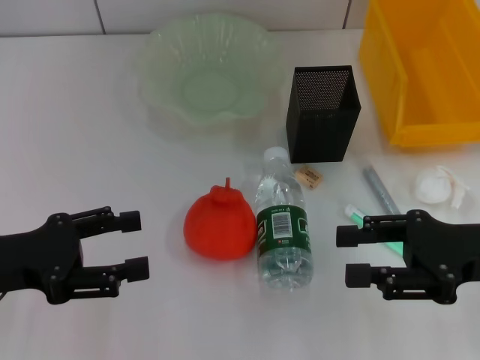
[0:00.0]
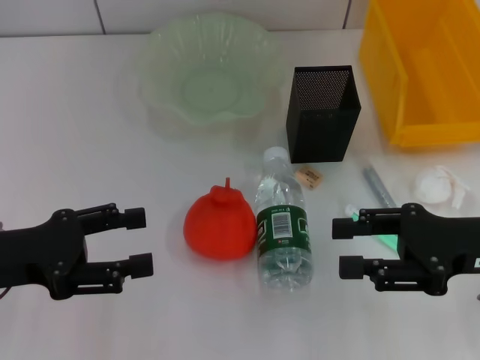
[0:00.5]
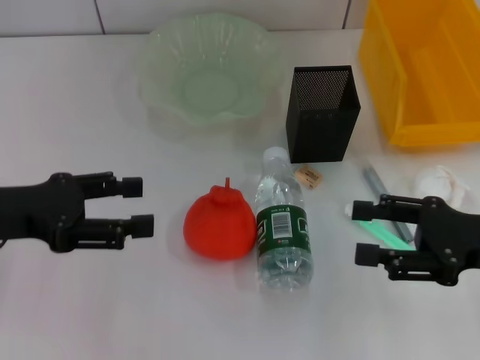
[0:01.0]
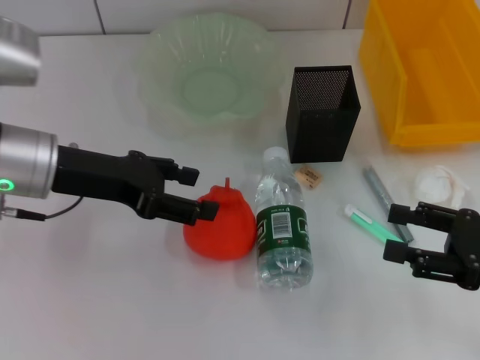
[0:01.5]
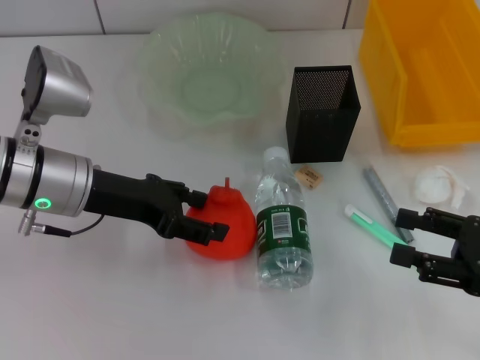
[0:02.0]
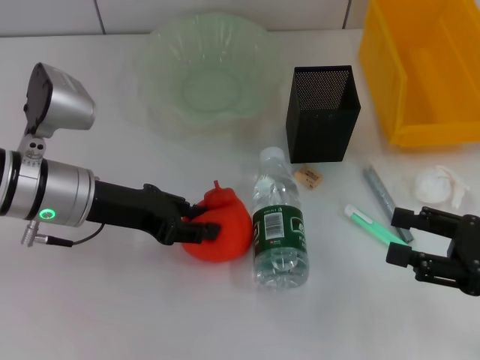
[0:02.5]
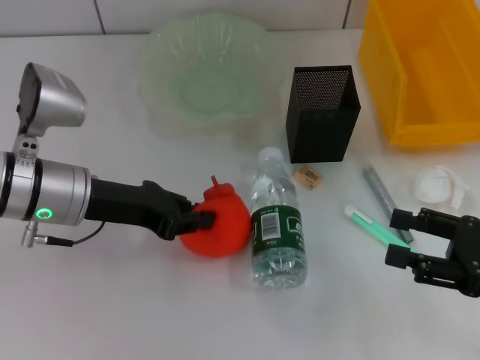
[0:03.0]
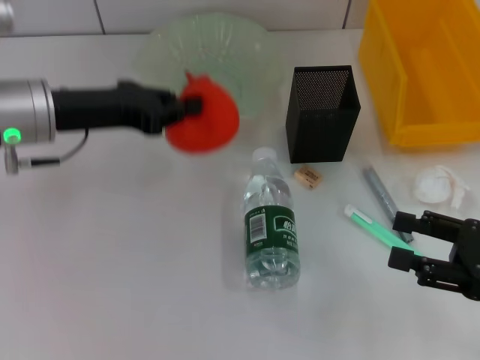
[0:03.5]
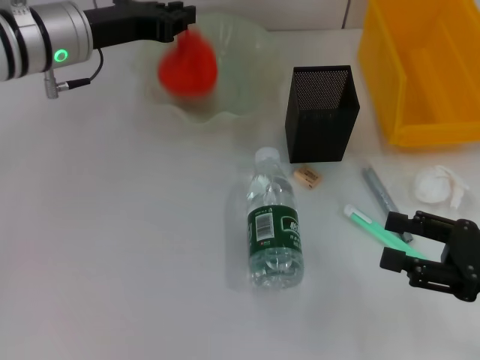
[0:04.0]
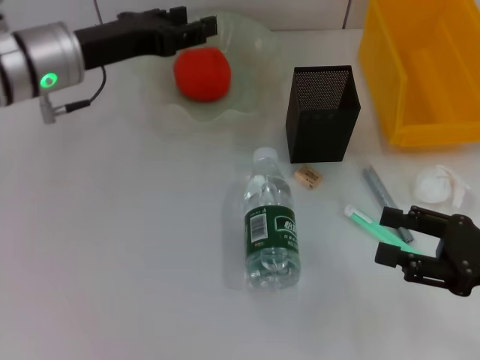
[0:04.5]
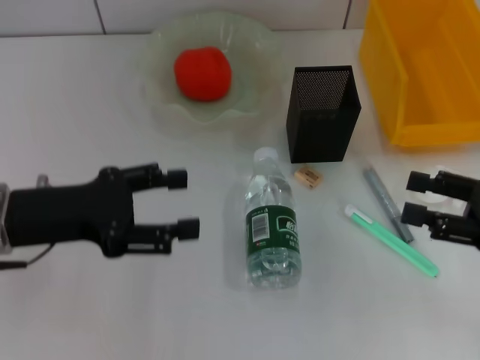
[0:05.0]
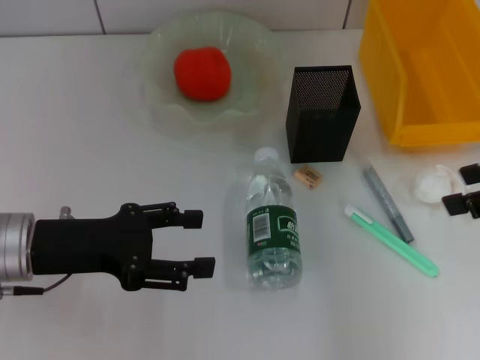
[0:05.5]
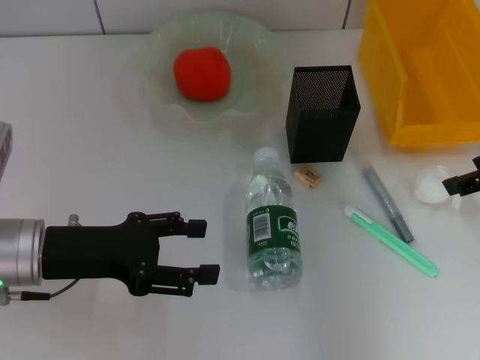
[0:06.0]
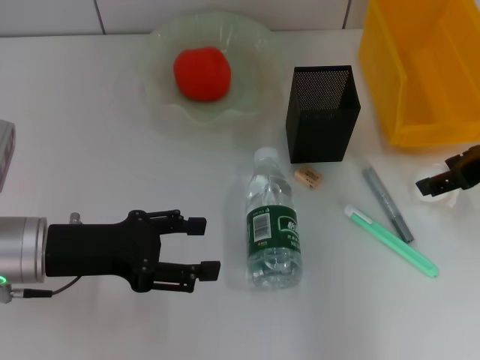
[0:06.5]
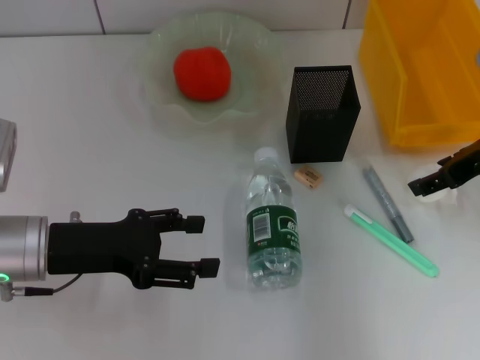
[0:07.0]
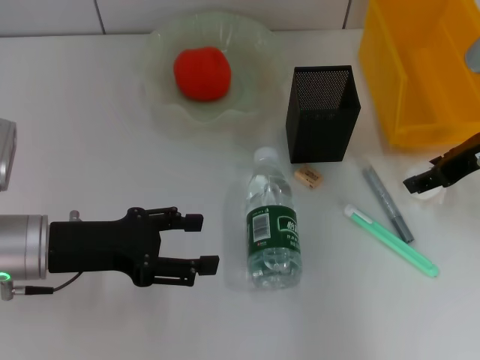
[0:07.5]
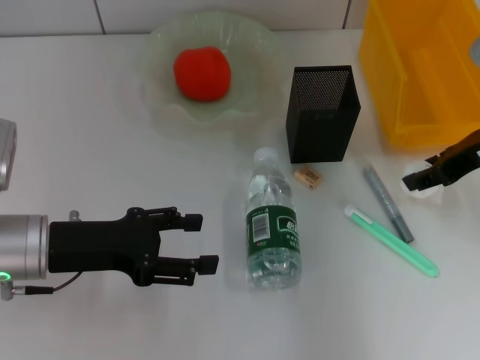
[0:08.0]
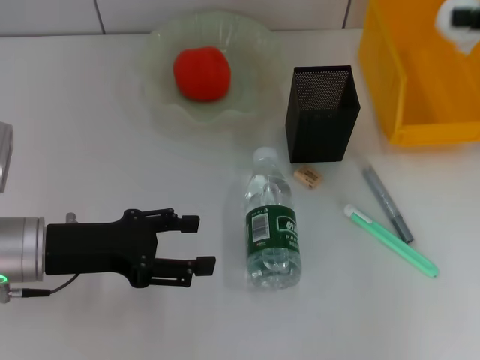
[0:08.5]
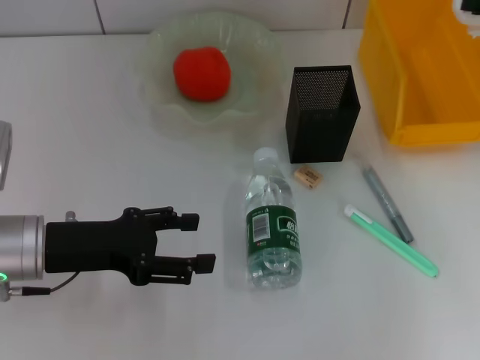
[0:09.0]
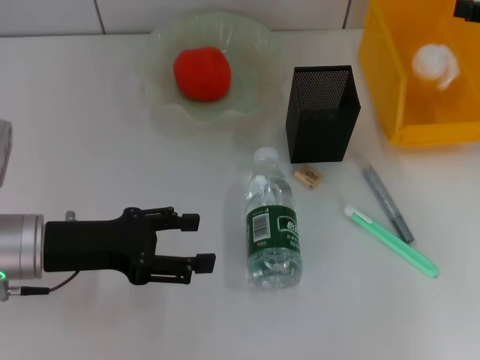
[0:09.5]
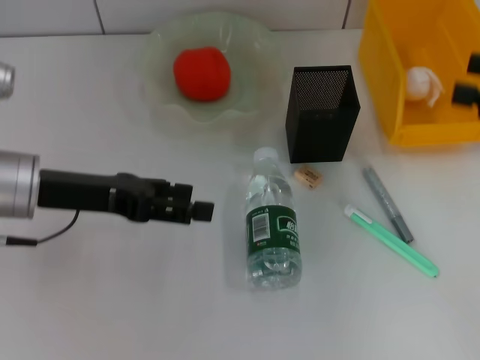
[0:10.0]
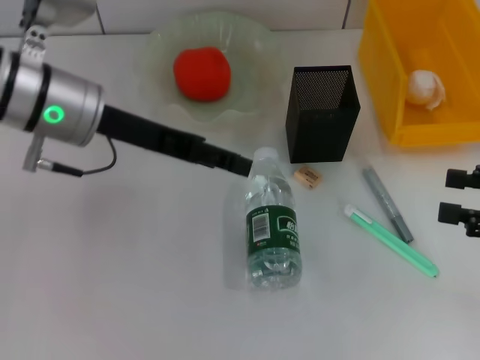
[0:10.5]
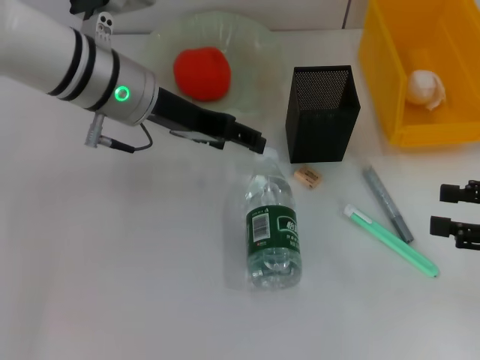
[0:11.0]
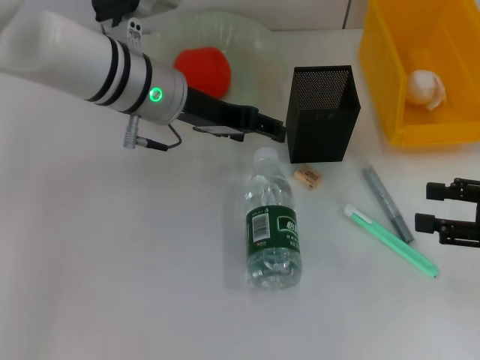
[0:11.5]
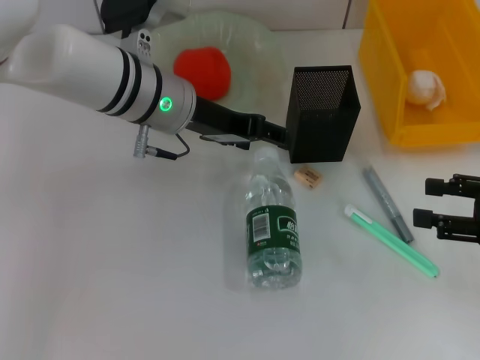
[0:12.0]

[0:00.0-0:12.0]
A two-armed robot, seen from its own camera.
Step, 0:00.0 to 0:02.0: Grab the orange with the left hand.
Step, 0:02.5 to 0:04.0: Place the orange into the fruit bowl with the left hand.
Step, 0:04.5 to 0:07.0: Grab the paper ball with the right hand.
Step, 0:07.5 to 0:10.0: Place the paper ball into the trash can with the right hand.
0:00.0 to 0:02.0: The left gripper is displaced forward and to the right by about 15 cm. Meanwhile the right gripper shifts by some 5 cm.
0:02.0 to 0:04.0: The left gripper travels forward and upward by about 10 cm, and closes.
0:04.0 to 0:06.0: The right gripper moves upward and forward, approximately 15 cm. The left gripper moves backward and downward, some 20 cm, and opens.
0:06.0 to 0:08.0: The right gripper changes place by approximately 5 cm, and closes up.
0:08.0 to 0:10.0: The left gripper ends up roughly 5 cm from where it was. Meanwhile the right gripper is displaced to the right and backward by about 10 cm.
0:10.0 to 0:12.0: The left gripper goes approximately 15 cm to the right and forward, while the right gripper travels downward by approximately 10 cm.

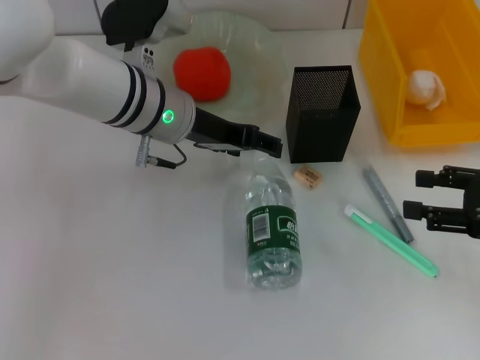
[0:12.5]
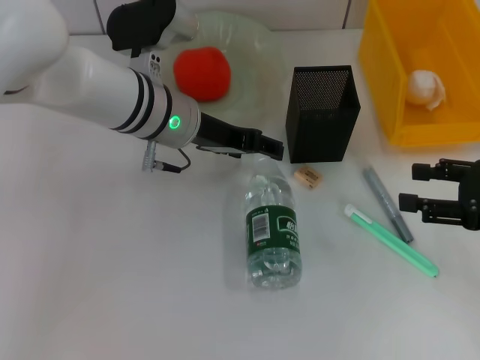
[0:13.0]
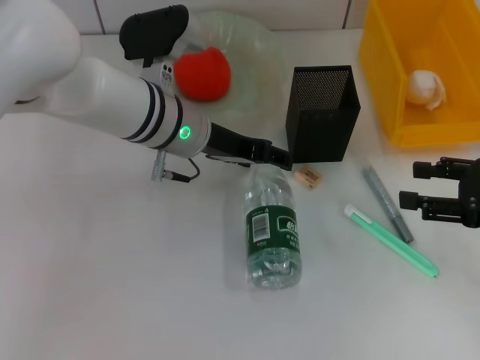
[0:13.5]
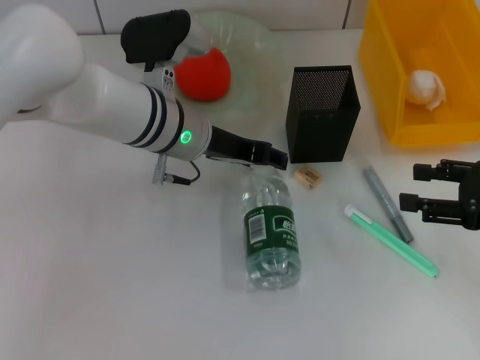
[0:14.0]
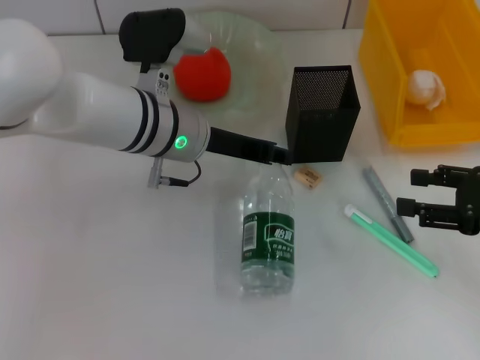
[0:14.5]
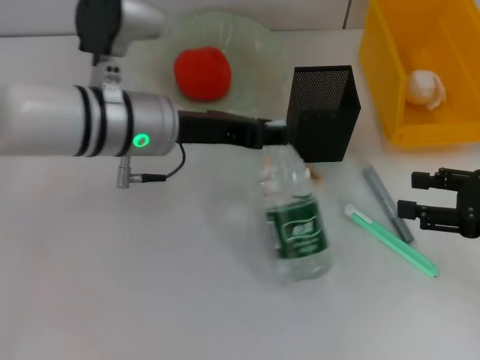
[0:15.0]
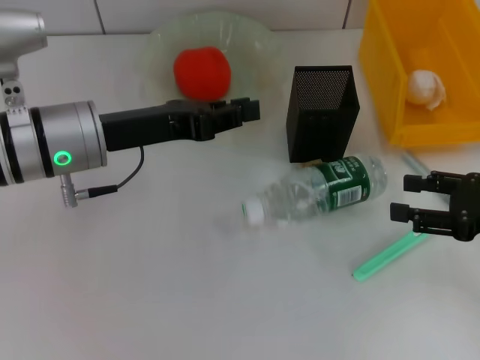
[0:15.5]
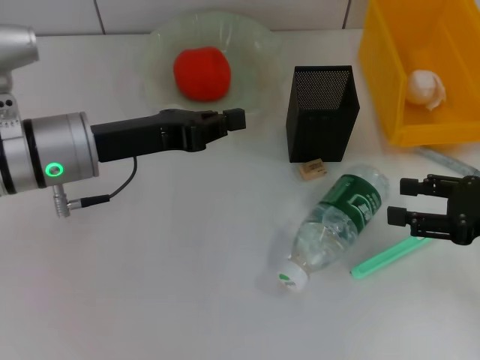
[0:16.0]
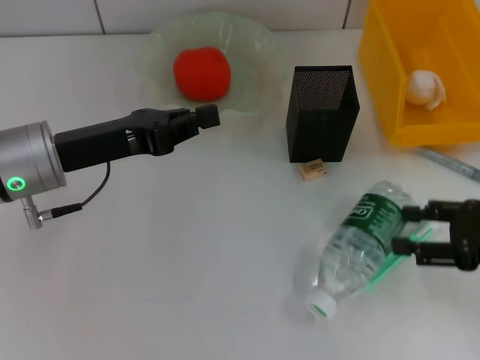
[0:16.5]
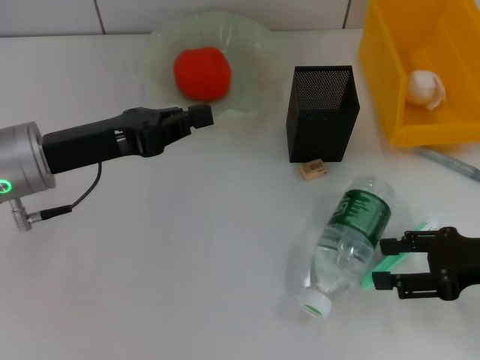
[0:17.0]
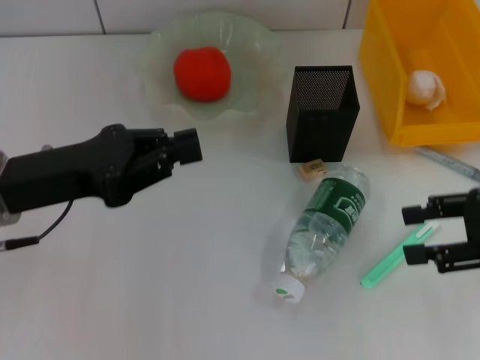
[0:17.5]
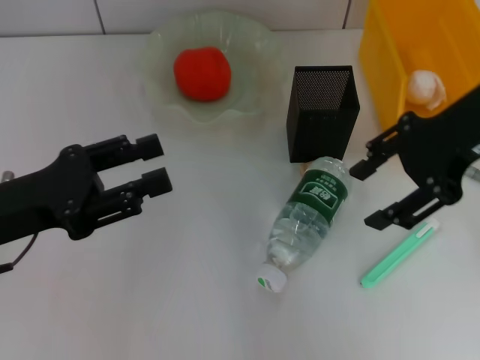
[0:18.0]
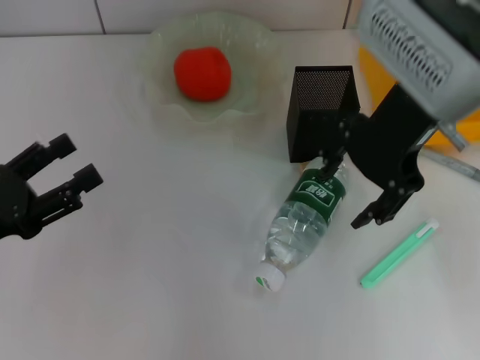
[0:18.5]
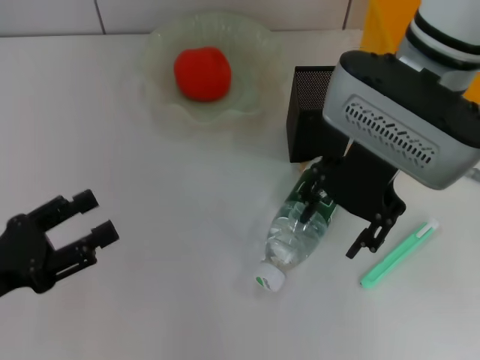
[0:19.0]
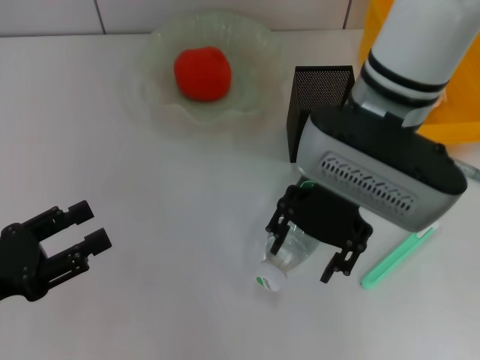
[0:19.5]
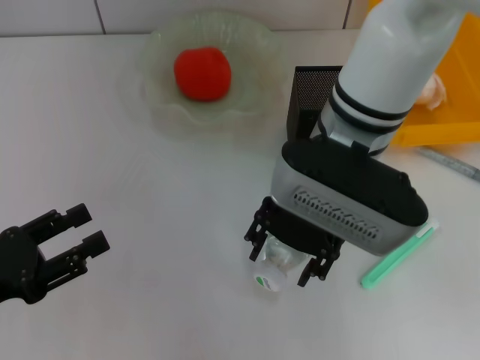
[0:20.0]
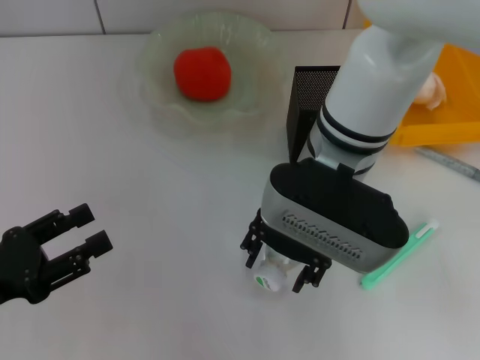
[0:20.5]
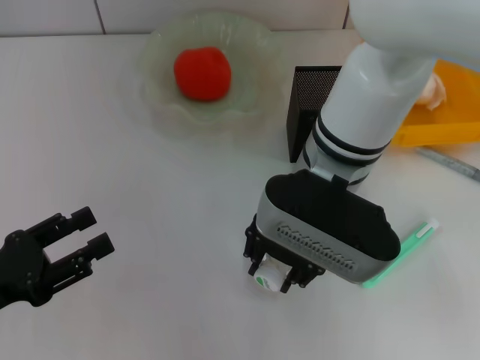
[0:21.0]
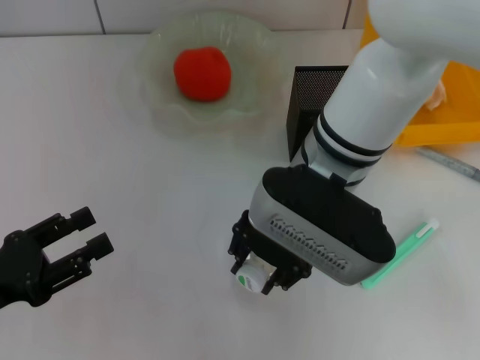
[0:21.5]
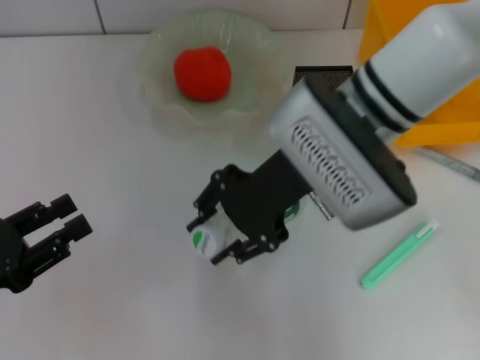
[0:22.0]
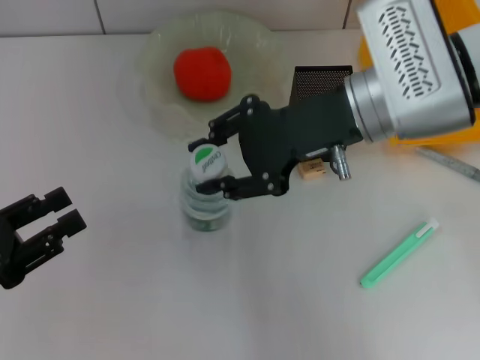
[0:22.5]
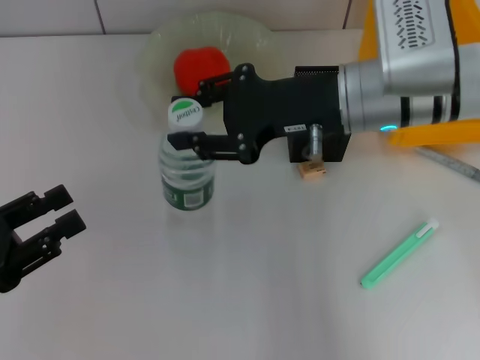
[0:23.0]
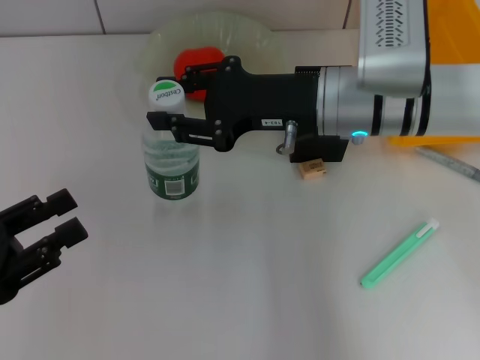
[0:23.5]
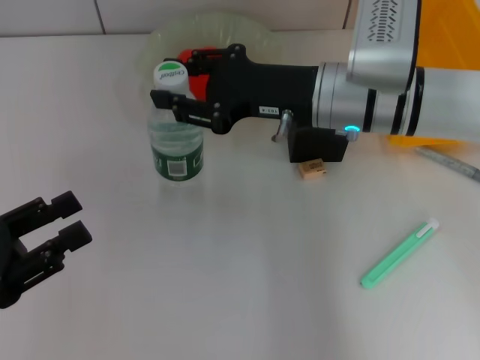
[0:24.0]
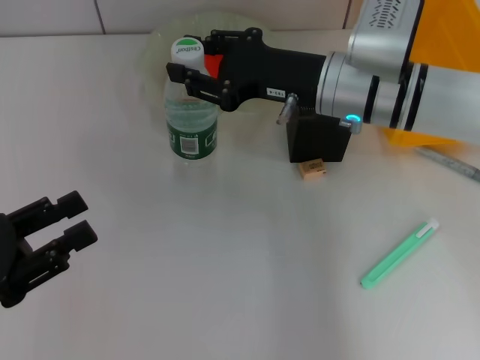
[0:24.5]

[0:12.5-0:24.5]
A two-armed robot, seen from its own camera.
Step, 0:12.5 to 0:21.0: Grab the water bottle with the right hand.
0:12.5 to 0:14.5: The grippers stay close to where they were, moving slightly.
0:14.5 to 0:16.5: The left gripper shifts approximately 15 cm to the left and backward, and closes up.
0:16.5 to 0:18.5: The left gripper shifts some 10 cm to the left and backward, and opens, while the right gripper shifts some 25 cm to the left, upward and forward.
0:18.5 to 0:20.5: The right gripper goes approximately 10 cm downward and to the left, while the left gripper shifts by about 5 cm.
0:20.5 to 0:22.5: The right gripper shifts some 5 cm to the right, and closes up.
0:22.5 to 0:24.5: The right gripper goes some 5 cm downward.

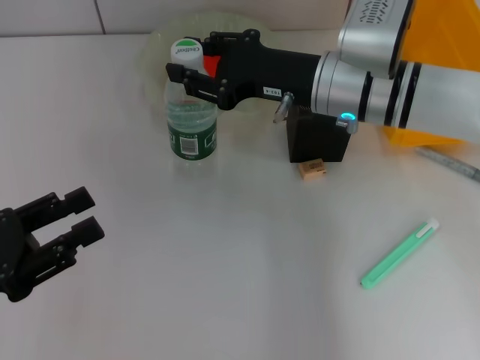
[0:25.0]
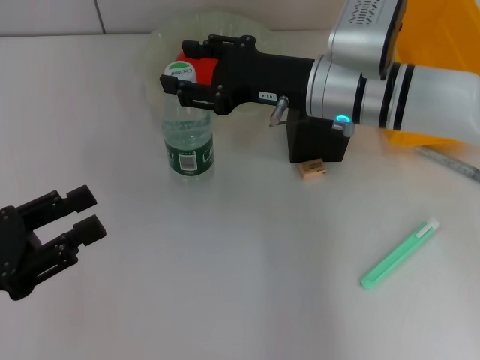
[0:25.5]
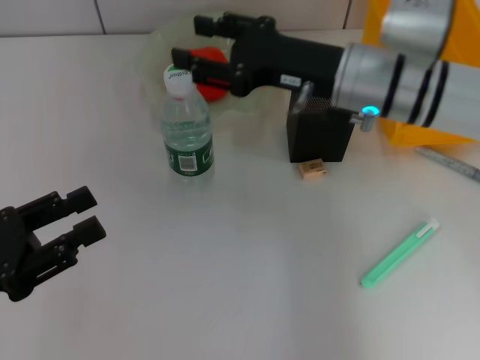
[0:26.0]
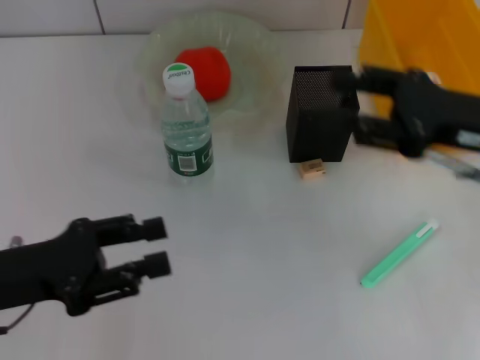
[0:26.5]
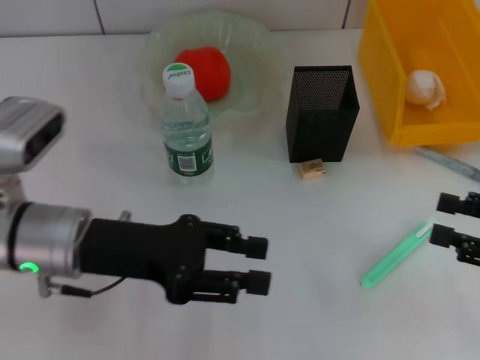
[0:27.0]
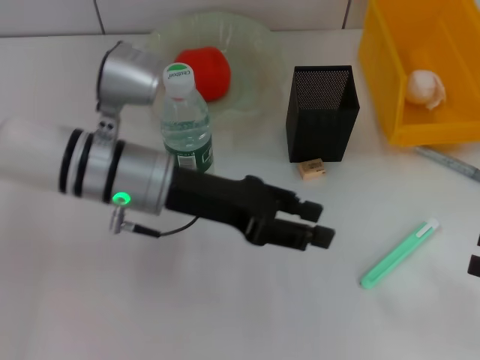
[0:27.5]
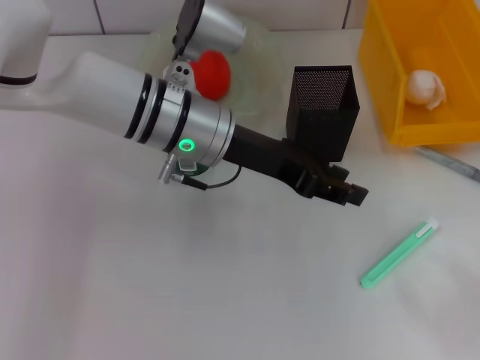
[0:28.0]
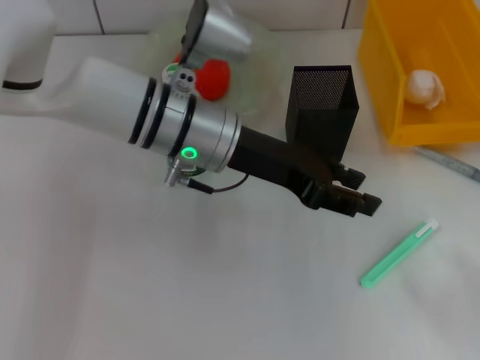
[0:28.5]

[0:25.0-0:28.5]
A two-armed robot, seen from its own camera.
0:25.0 to 0:27.0: The right gripper goes roughly 30 cm to the right and backward; the left gripper heads to the right and forward, covering about 15 cm.
0:27.0 to 0:28.5: The left gripper shifts about 15 cm to the right and forward. Meanwhile the right gripper goes roughly 5 cm to the right.
